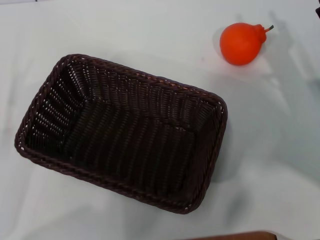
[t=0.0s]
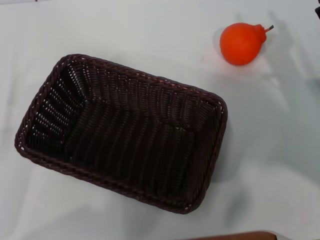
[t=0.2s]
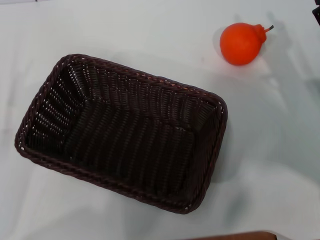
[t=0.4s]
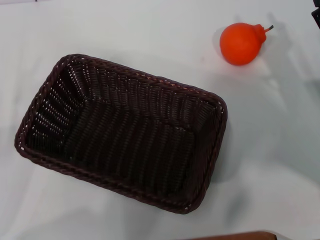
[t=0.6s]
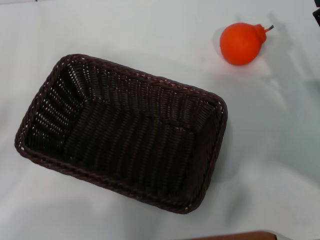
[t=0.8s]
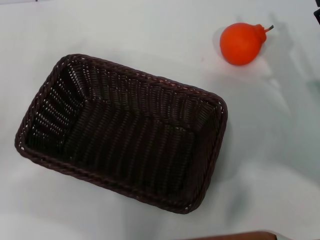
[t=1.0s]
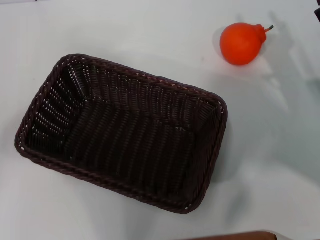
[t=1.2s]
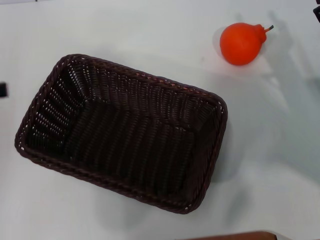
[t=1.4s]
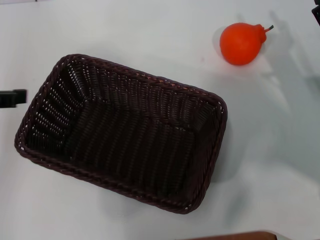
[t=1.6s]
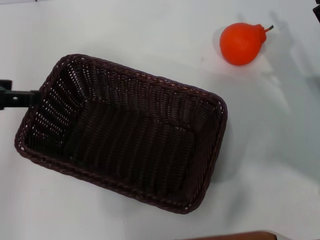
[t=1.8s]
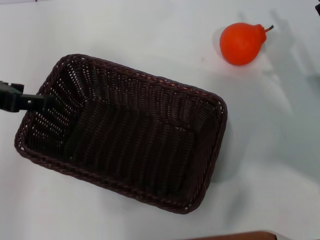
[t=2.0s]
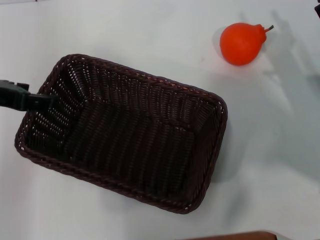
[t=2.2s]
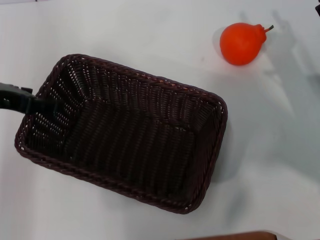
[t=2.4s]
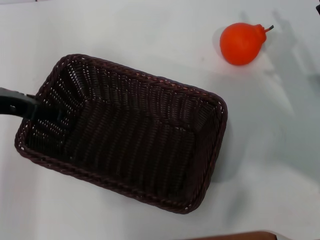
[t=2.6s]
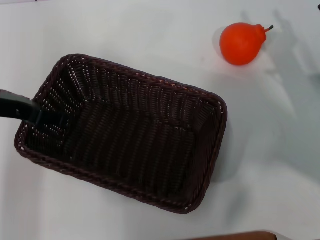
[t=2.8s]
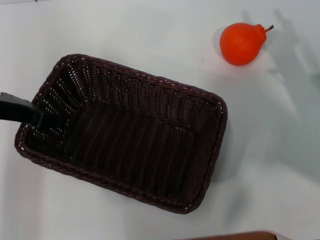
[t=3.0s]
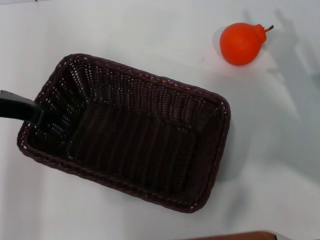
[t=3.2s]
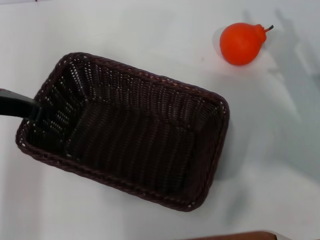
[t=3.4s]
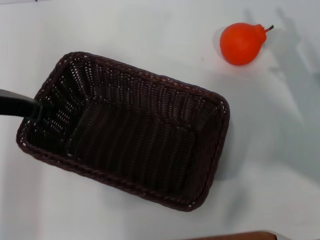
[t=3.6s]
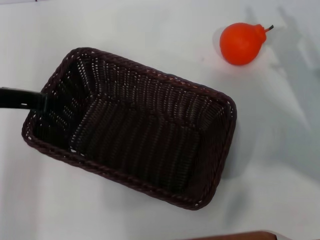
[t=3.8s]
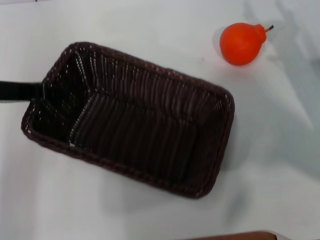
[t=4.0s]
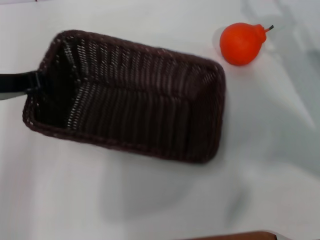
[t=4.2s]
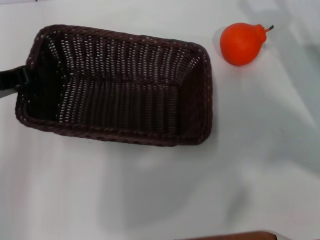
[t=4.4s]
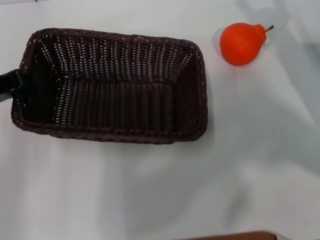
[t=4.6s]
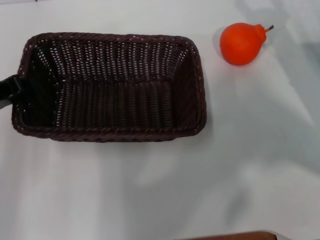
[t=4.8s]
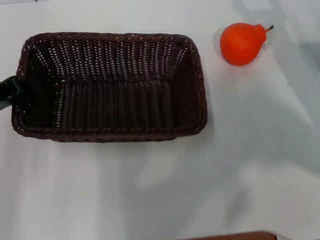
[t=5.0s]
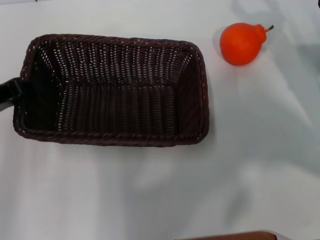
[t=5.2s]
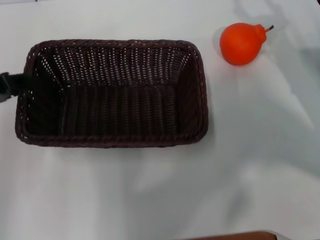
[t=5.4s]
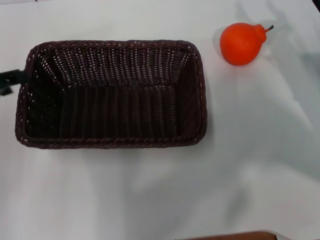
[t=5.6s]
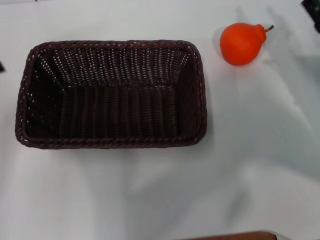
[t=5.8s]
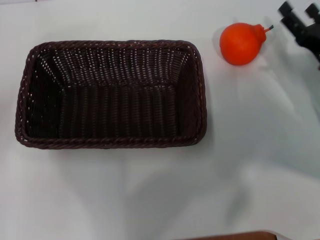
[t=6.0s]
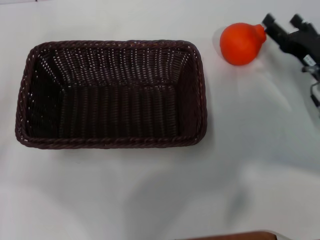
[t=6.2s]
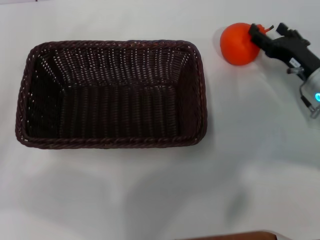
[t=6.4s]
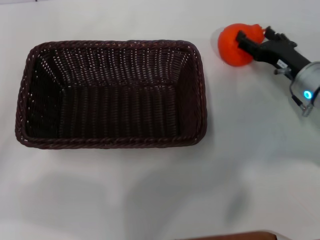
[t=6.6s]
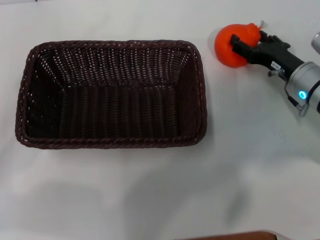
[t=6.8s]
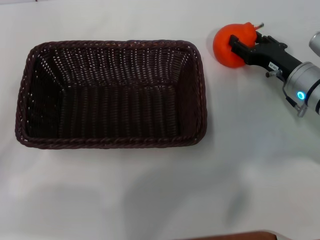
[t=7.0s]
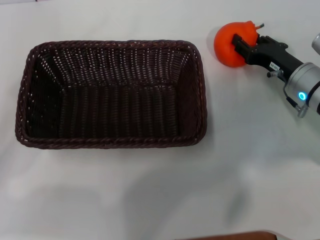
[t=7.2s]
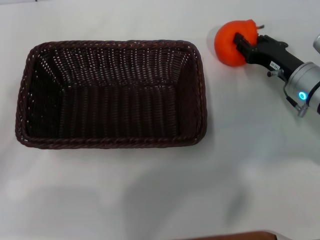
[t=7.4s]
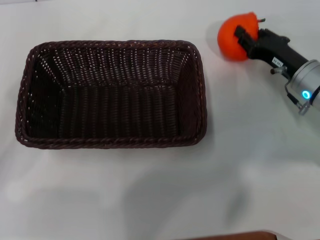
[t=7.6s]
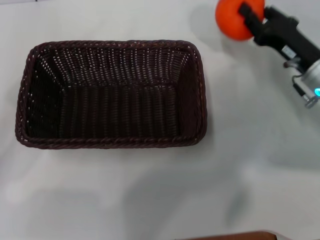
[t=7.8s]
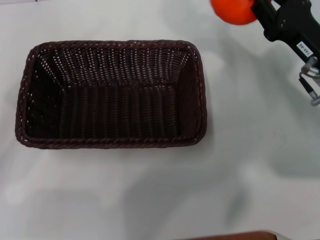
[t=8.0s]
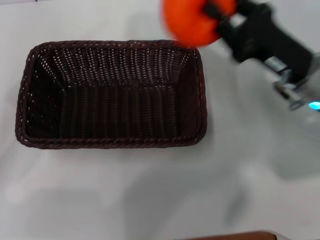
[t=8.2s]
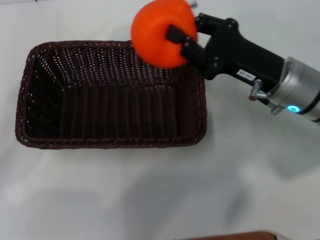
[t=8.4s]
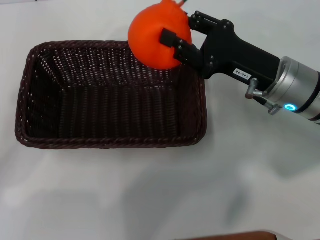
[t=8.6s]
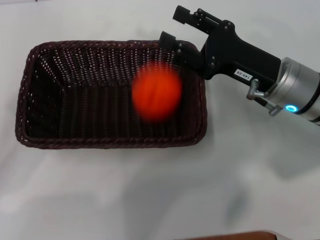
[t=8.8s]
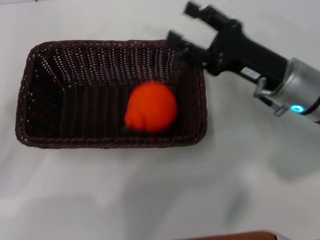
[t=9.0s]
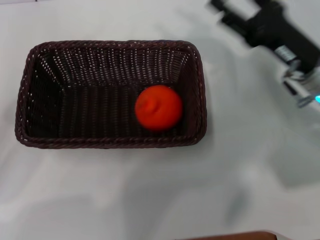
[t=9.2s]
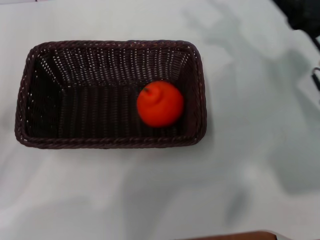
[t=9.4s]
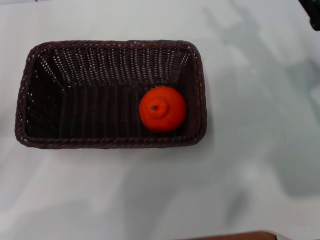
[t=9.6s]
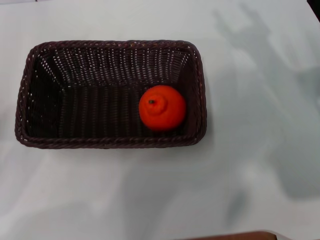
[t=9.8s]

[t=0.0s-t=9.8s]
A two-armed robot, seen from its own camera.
Task of the whole recording: the left gripper pick up the black basket and place it horizontally in the middle of the table, the right gripper pick up the orange and place it into the black basket.
Step, t=0.0s to t=4.2s: Pick up the dark basket with the left gripper.
Step, t=4.4s to t=5.6s: Place the dark basket in the center of view with the left gripper.
Step, t=5.8s to t=7.6s: Pick up the orange with the left gripper.
Step, t=7.8s to t=8.8s: Place the orange into the dark basket with the left gripper.
t=0.0s to t=1.4s: The left gripper goes roughly 20 cm upward.
t=1.4s to t=2.8s: The left gripper shifts some 10 cm to the right and forward.
t=2.8s to t=4.2s: The left gripper closes.
t=4.2s to t=5.6s: The left gripper moves some 5 cm.
t=5.6s to t=7.0s: The right gripper ends up approximately 10 cm from where it was. Meanwhile the left gripper is displaced to the left by roughly 5 cm, and opens up.
t=7.0s to t=8.4s: The right gripper goes approximately 10 cm upward and to the left, and closes up.
t=8.4s to t=9.8s: The right gripper moves to the right, approximately 10 cm, and opens up.

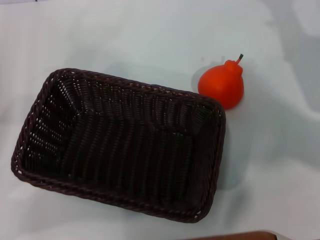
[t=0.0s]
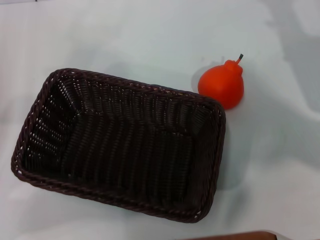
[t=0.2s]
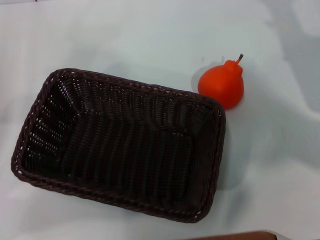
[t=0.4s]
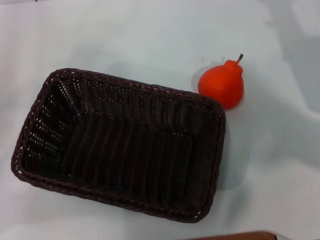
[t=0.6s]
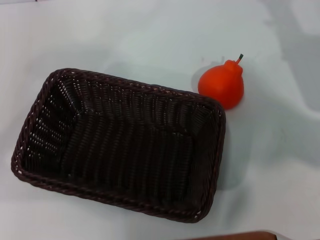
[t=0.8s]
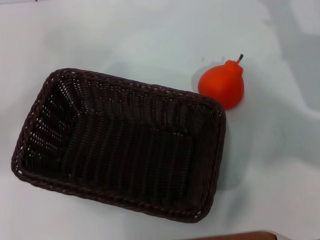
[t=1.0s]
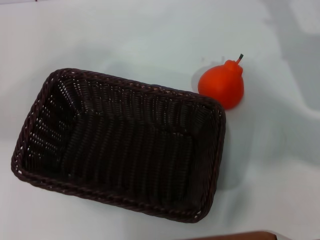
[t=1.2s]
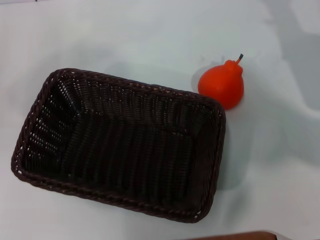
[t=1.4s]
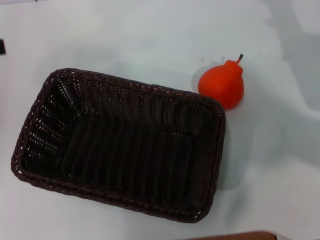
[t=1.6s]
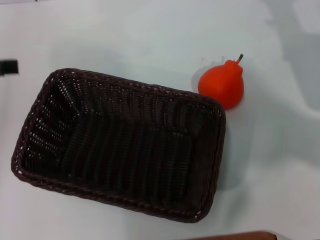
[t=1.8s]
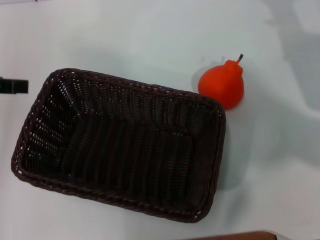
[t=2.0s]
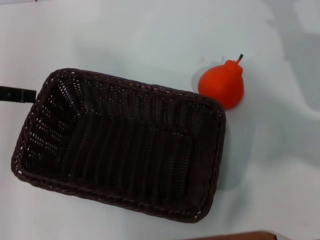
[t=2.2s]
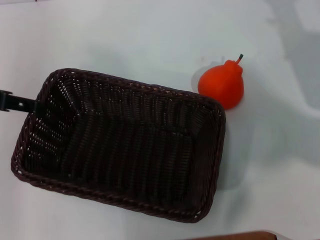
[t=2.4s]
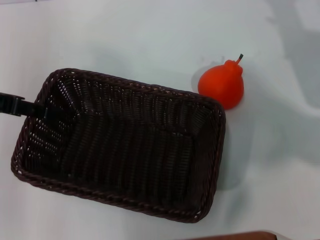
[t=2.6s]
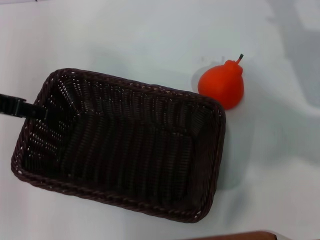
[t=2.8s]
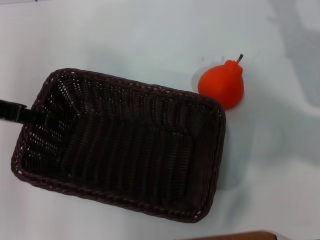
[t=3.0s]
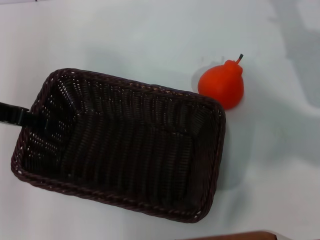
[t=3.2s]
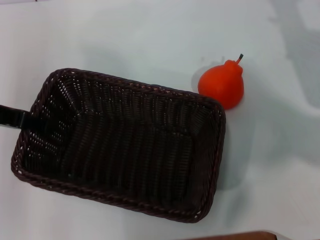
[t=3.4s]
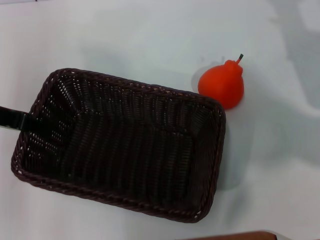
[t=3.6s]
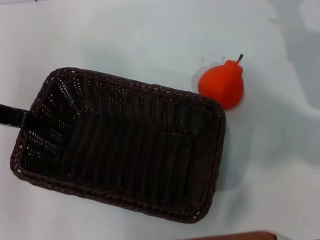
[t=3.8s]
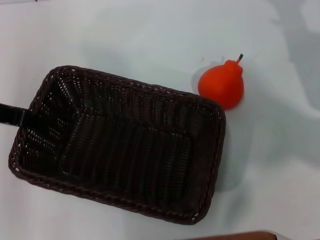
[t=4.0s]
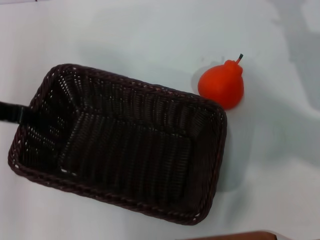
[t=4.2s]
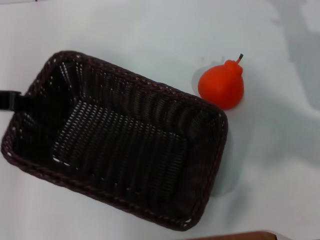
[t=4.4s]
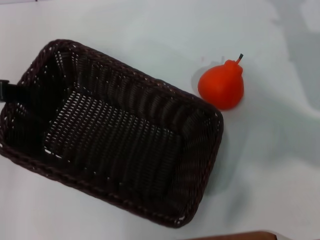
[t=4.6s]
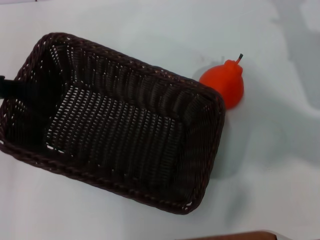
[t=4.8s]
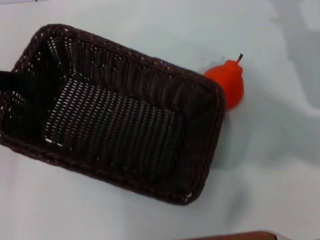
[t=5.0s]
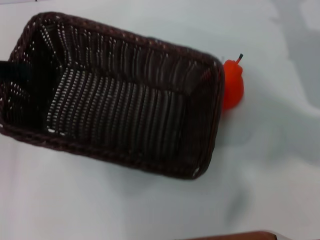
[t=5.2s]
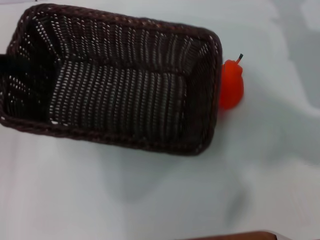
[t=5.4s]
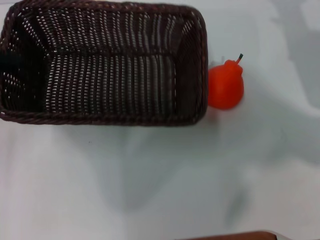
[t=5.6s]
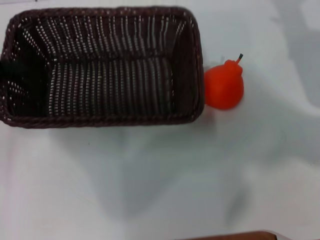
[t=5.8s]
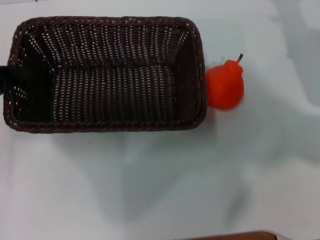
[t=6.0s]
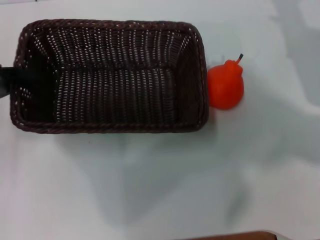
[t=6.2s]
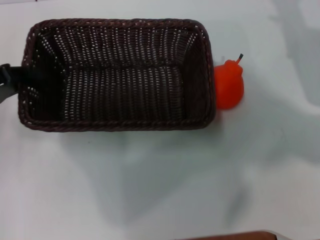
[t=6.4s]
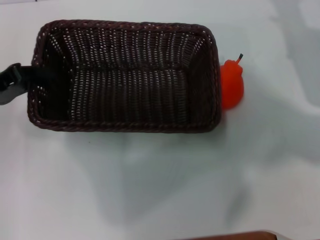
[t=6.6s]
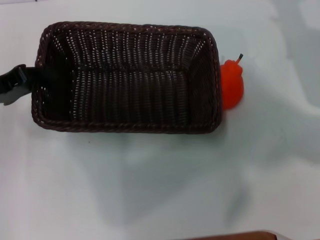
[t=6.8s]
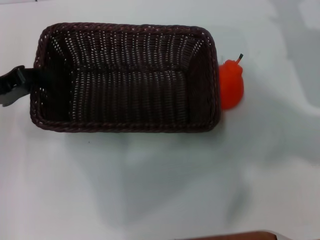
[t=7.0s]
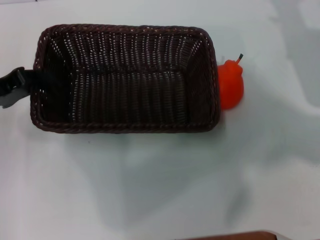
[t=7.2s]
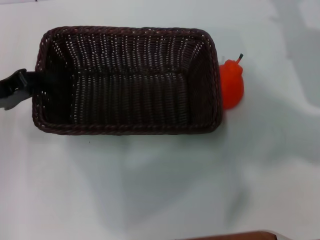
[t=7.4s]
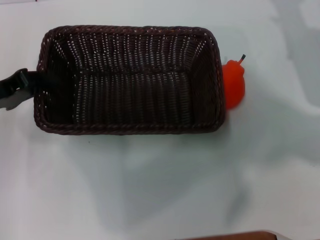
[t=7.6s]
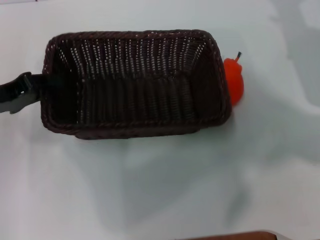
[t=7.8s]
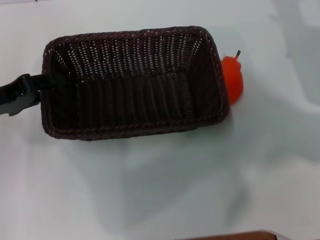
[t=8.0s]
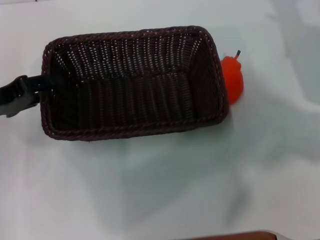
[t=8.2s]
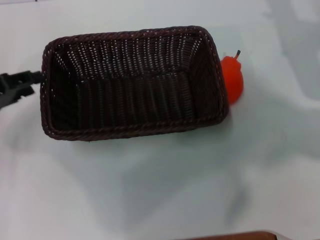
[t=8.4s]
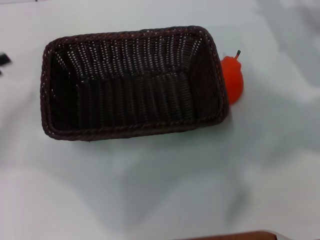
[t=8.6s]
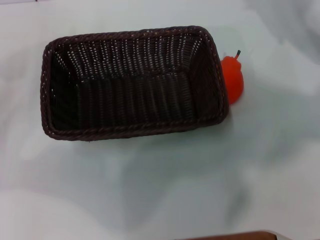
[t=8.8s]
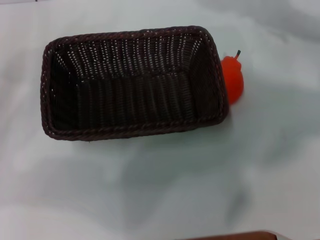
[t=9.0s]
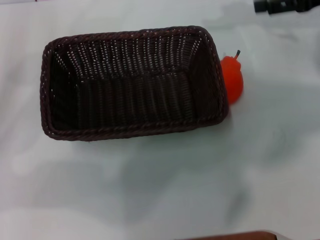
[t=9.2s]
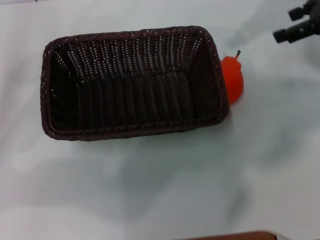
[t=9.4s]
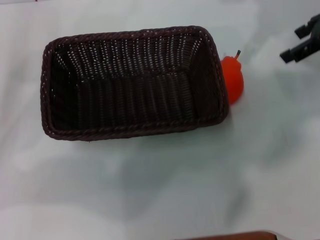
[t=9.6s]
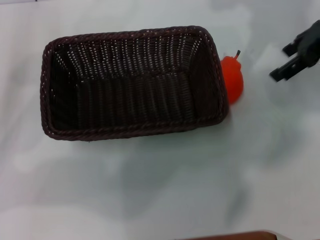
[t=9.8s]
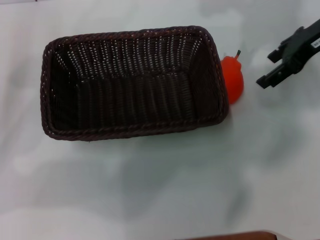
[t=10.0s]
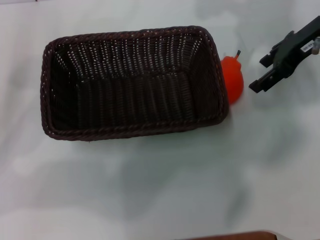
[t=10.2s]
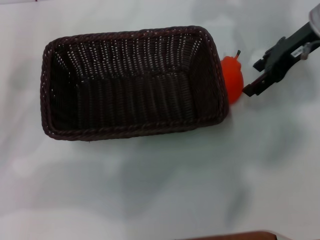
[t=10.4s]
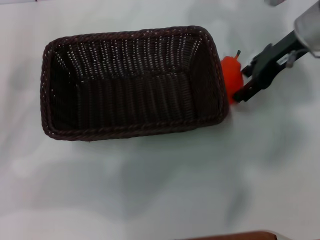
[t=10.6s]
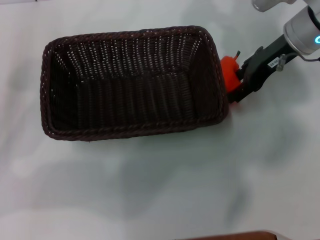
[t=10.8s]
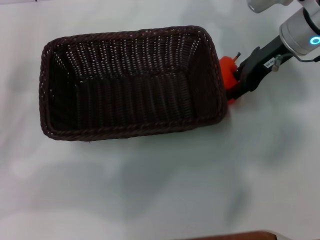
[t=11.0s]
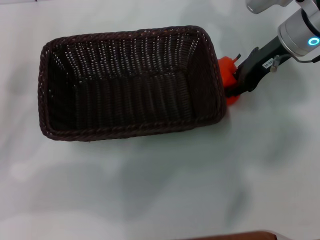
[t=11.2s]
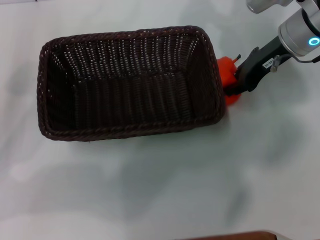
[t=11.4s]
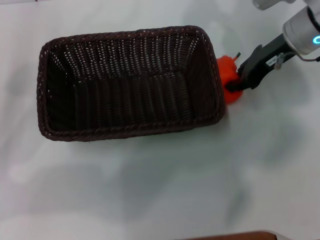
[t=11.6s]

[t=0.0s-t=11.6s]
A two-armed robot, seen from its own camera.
Task of the whole recording: the left gripper pick up the black basket and place it horizontally in the middle of the table, the right gripper pick up the orange and place it into the black basket.
Step, t=0.0s to t=4.4s: Pick up the dark basket with the left gripper.
Step, t=4.8s to t=8.4s: Place the dark basket in the center of view with the left gripper.
t=0.0s to t=1.4s: The left gripper is displaced upward by roughly 15 cm.
t=1.4s to t=2.8s: The left gripper moves to the right, some 10 cm.
t=2.8s to t=4.4s: The left gripper closes its fingers.
t=4.4s to t=5.8s: The left gripper ends up some 5 cm from where it was.
t=5.8s to t=7.2s: There are only small adjustments of the grippers.
t=7.2s to t=8.8s: The left gripper shifts some 5 cm to the left, and opens its fingers. Meanwhile the right gripper ends up some 5 cm from where it was.
t=8.8s to t=10.2s: The right gripper moves to the left, roughly 5 cm.
t=10.2s to t=11.6s: The right gripper moves about 5 cm, and closes up.
